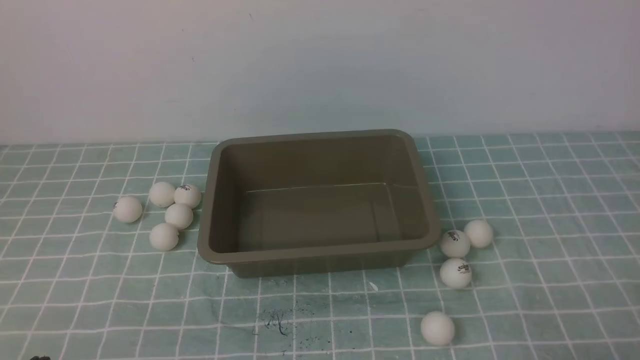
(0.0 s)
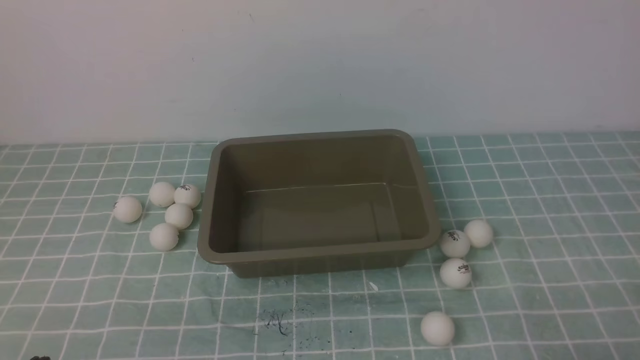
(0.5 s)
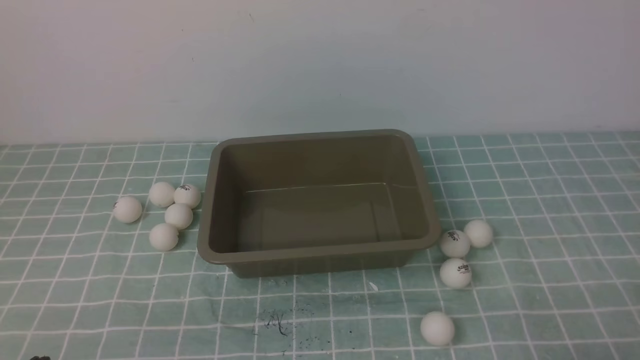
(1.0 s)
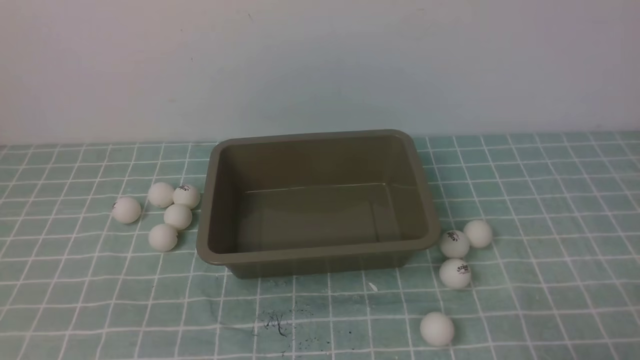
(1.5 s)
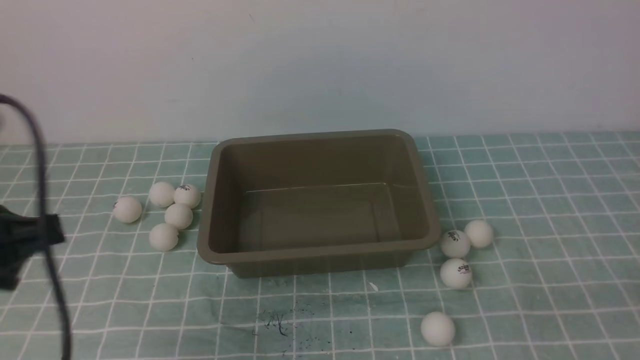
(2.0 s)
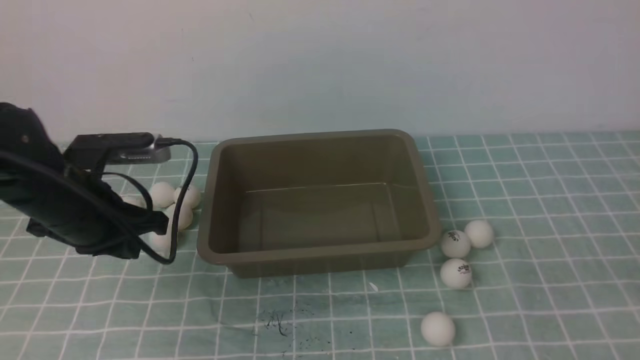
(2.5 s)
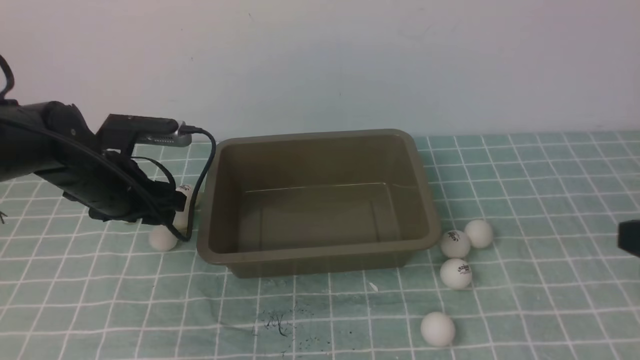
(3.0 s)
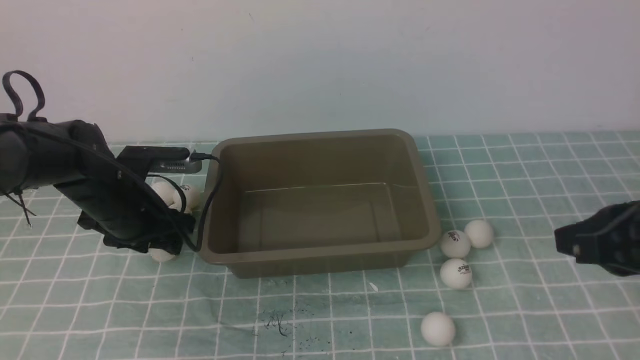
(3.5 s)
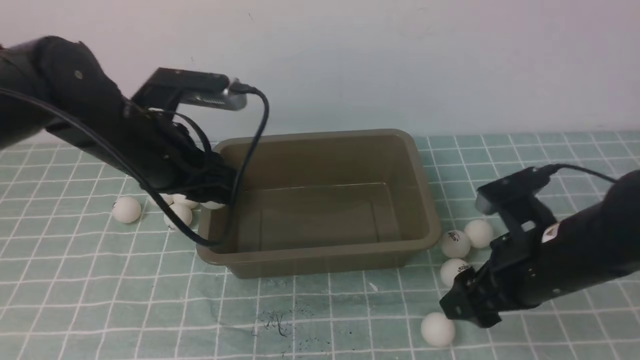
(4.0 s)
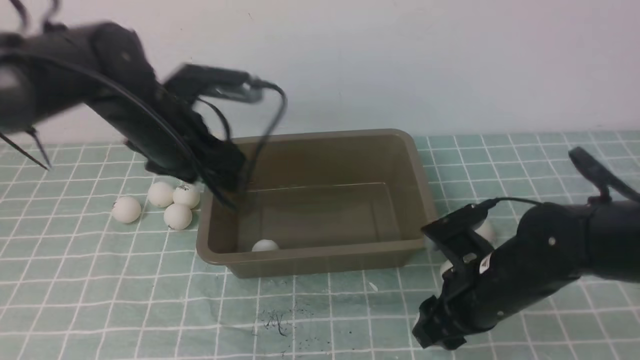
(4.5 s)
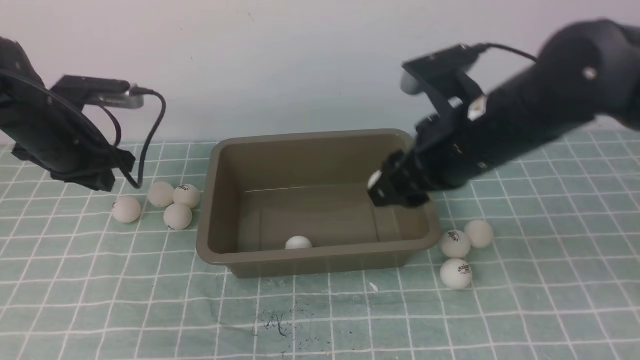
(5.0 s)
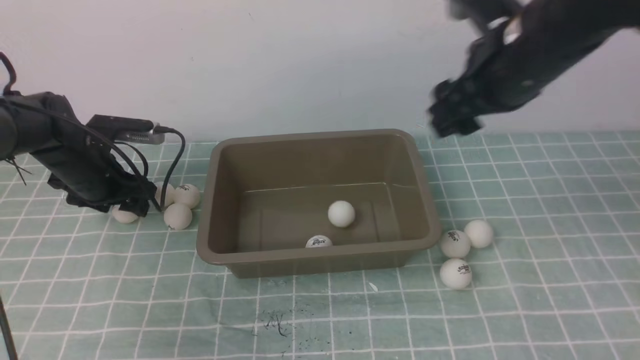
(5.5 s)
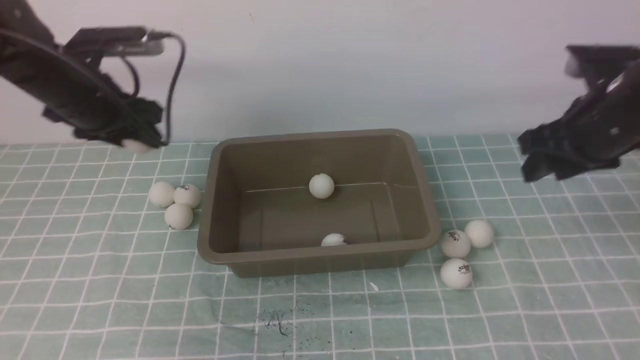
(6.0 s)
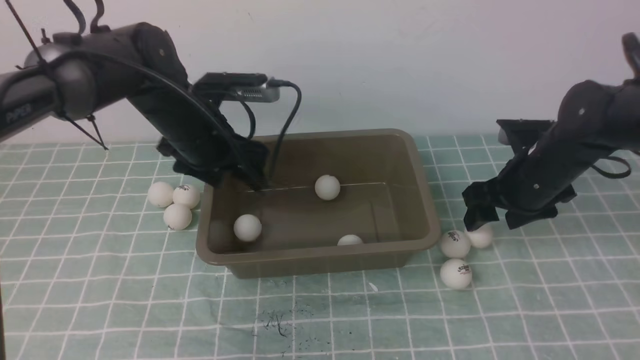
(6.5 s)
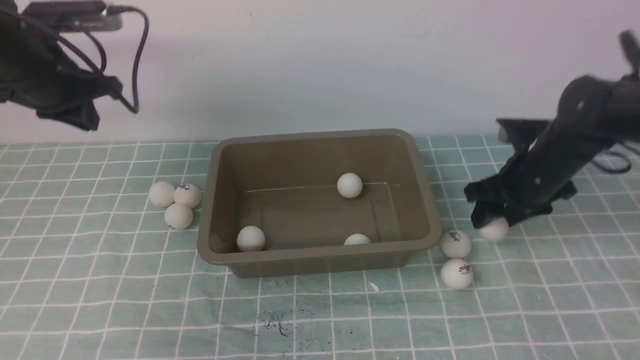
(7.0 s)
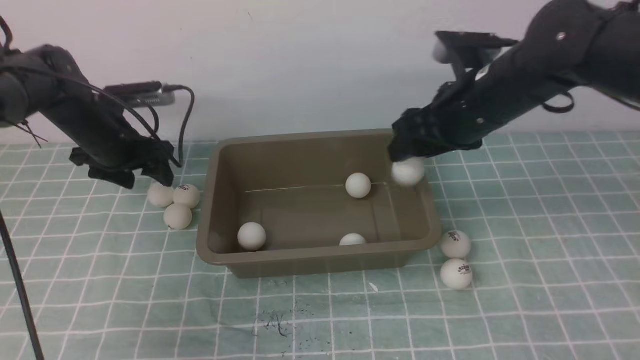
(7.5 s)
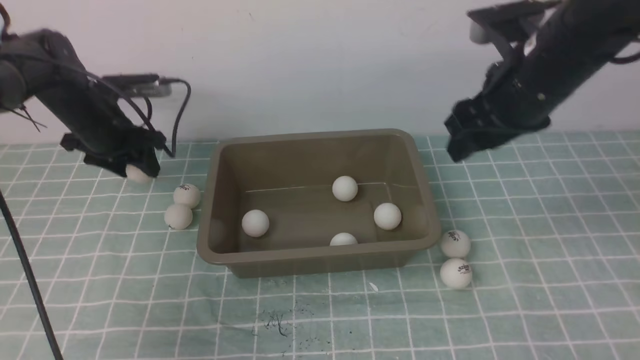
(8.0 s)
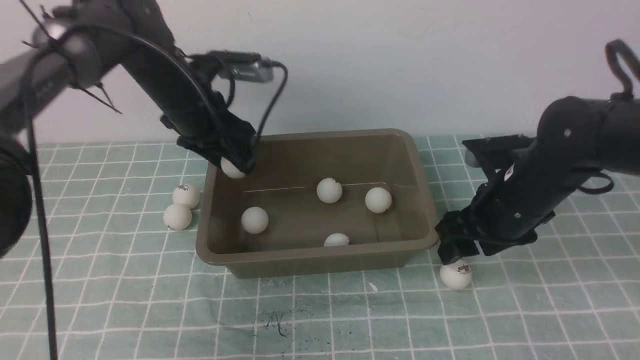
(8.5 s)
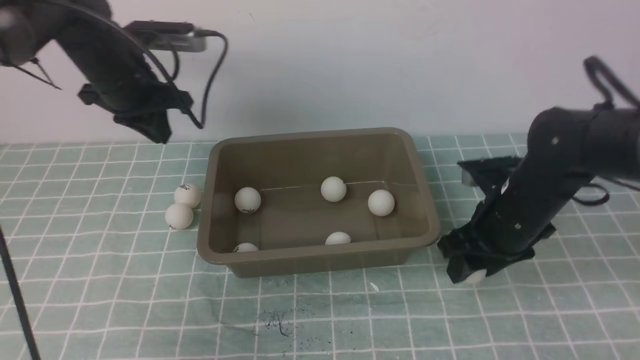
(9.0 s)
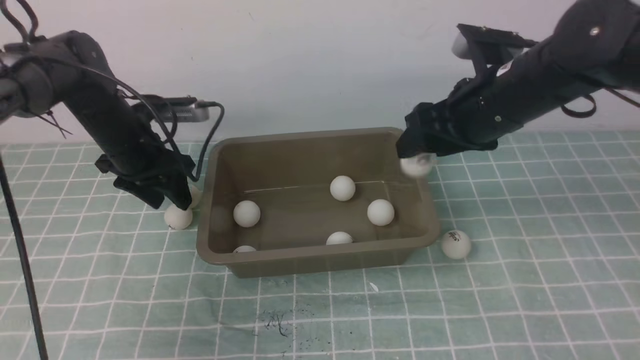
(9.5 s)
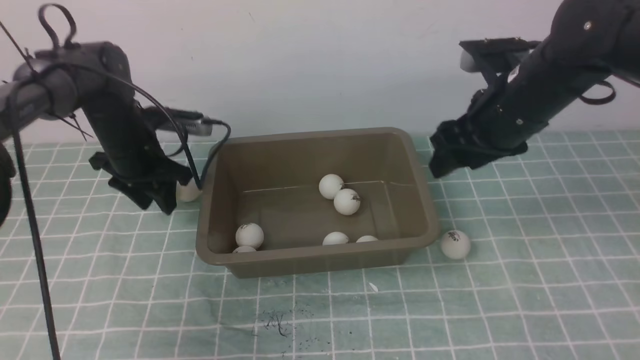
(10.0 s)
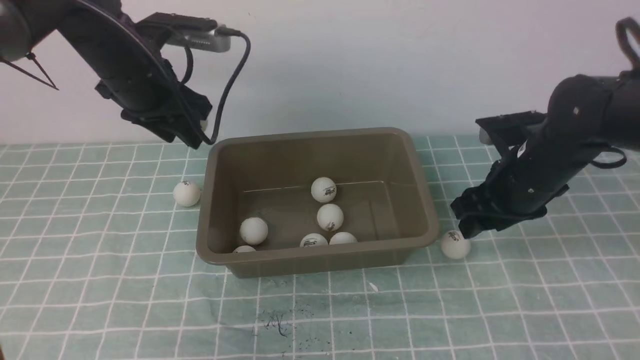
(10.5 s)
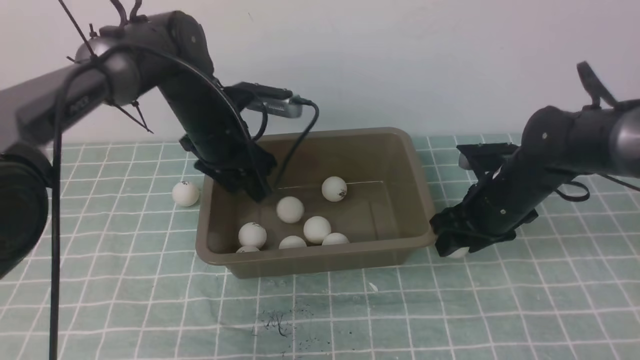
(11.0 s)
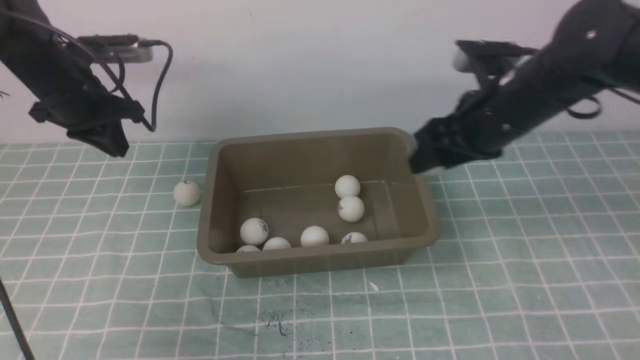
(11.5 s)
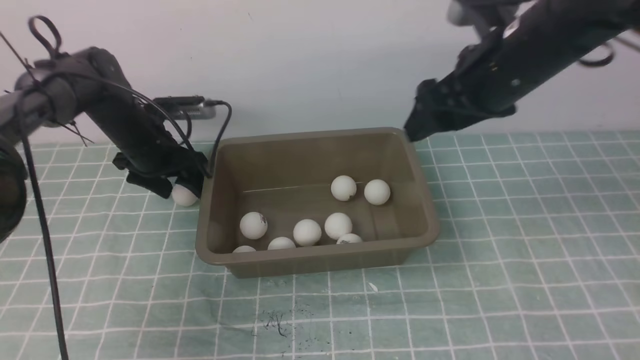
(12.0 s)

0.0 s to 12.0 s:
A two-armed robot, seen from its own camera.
Step, 0.0 to 3.5 s: use the left arm to clamp the table tennis ball closest to it.
Step, 5.5 to 6.0 s: use the left arm to clamp the table tennis ball closest to it.
Step, 7.0 to 7.5 s: use the right arm to put the table tennis ball into the box.
0.0 to 2.0 s: The left gripper travels upward and forward by some 20 cm.
2.0 to 4.0 s: The left gripper heads forward and to the right, covering roughly 20 cm, and opens its fingers. The right gripper travels forward and to the left by approximately 20 cm, and opens its fingers.
4.0 to 6.0 s: The right gripper goes some 15 cm forward, to the right and upward. The left gripper is displaced forward and to the left by roughly 10 cm, and closes and opens again.
6.0 to 8.0 s: The right gripper moves to the left, roughly 5 cm, and moves some 10 cm downward and comes back. Meanwhile the left gripper heads forward, covering some 5 cm, moves some 5 cm to the right and comes back, and closes, then opens again.
8.0 to 10.0 s: The right gripper goes downward and returns, some 10 cm each way; the left gripper goes to the right and returns, about 10 cm each way, and closes, then reopens.
10.0 to 12.0 s: The left gripper closes, then reopens. Meanwhile the right gripper moves upward, approximately 10 cm.

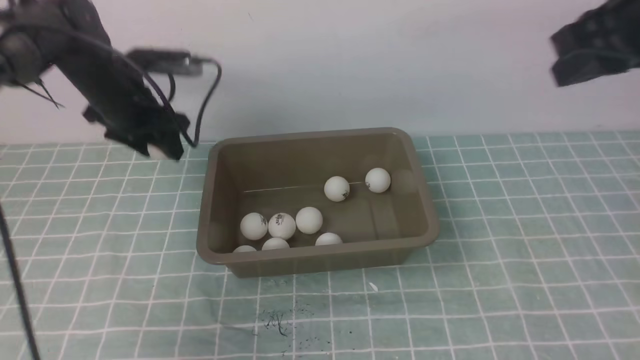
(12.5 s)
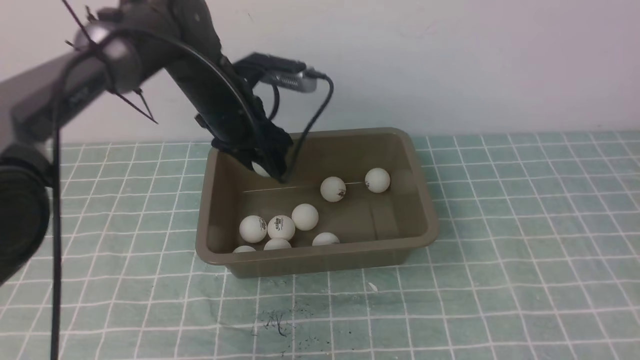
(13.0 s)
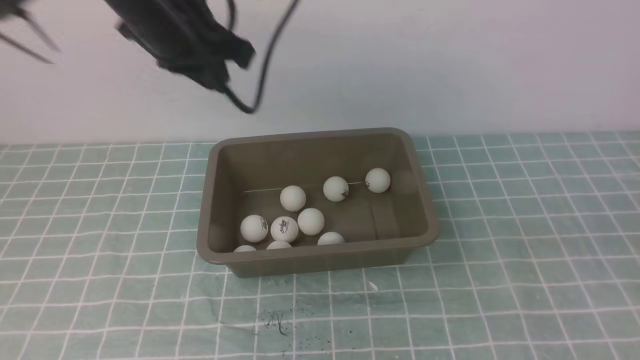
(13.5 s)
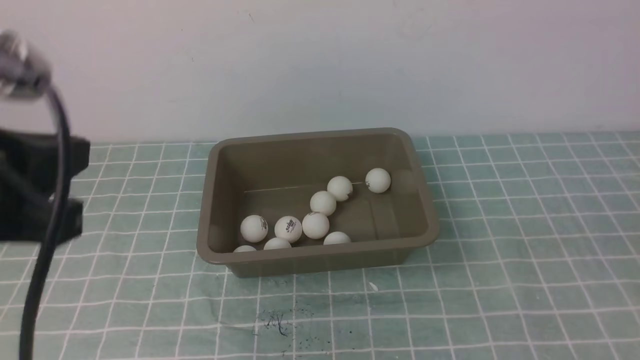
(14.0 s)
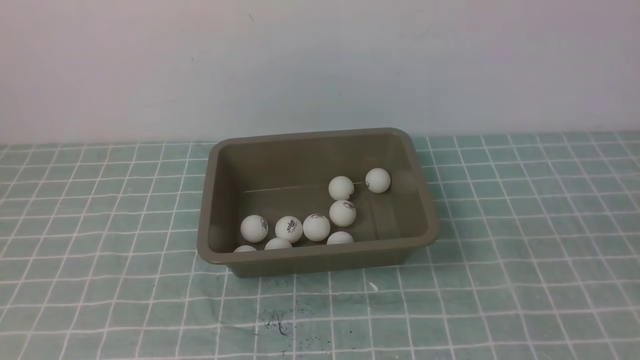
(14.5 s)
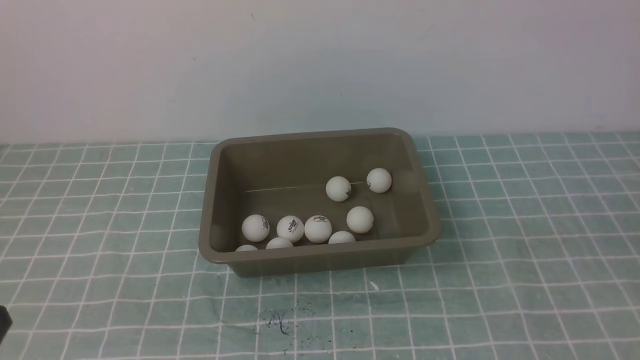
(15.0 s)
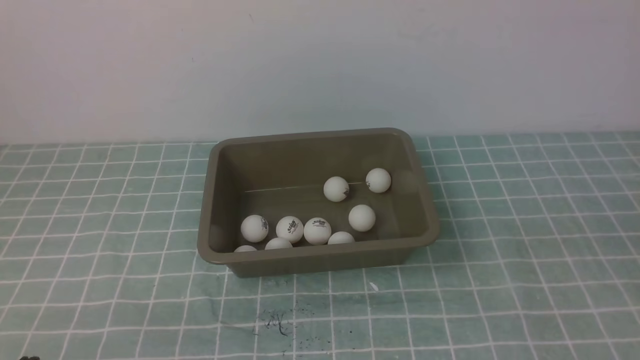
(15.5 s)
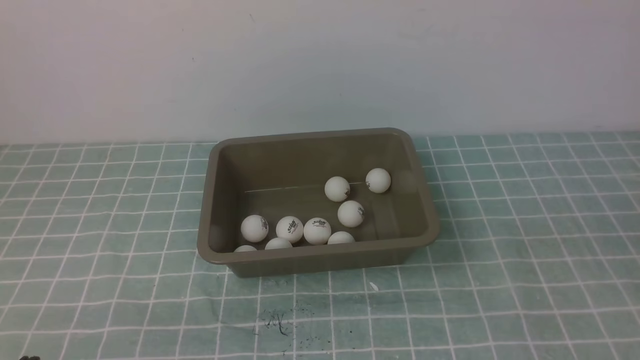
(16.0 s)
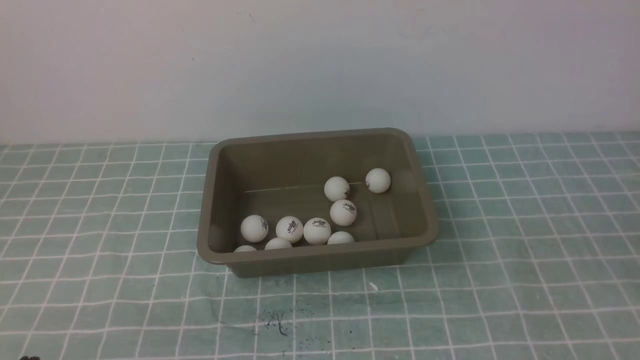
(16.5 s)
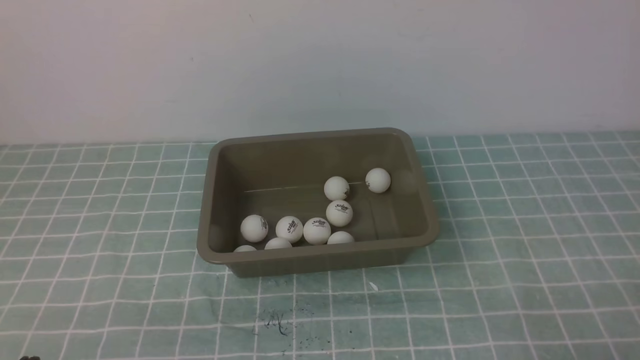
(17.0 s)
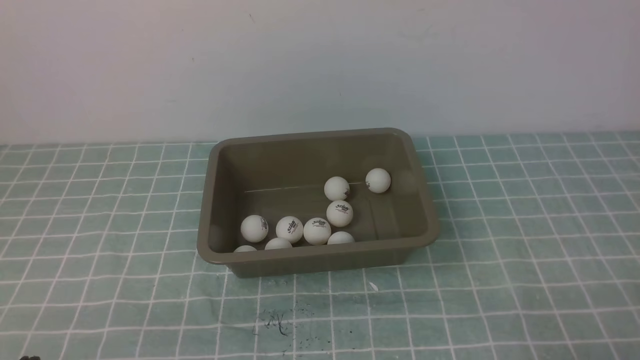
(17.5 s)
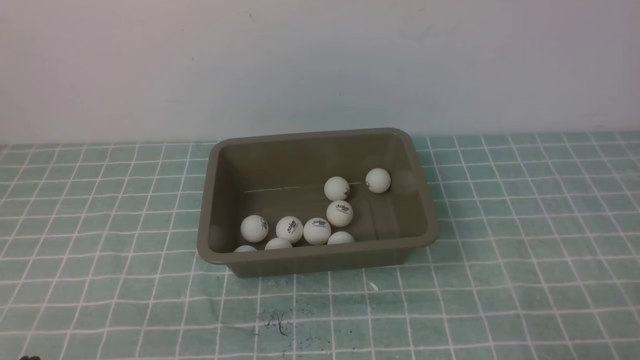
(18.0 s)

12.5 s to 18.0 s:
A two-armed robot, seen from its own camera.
Step, 12.5 to 13.5 s: use the left arm to put the table tennis ball into the box.
12.5 to 14.5 s: The left gripper moves backward, roughly 40 cm, and closes its fingers. The right gripper travels backward and downward by about 25 cm.
14.5 to 16.0 s: The left gripper travels downward by roughly 15 cm.

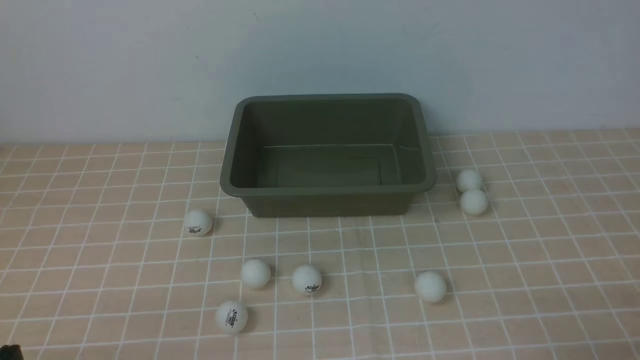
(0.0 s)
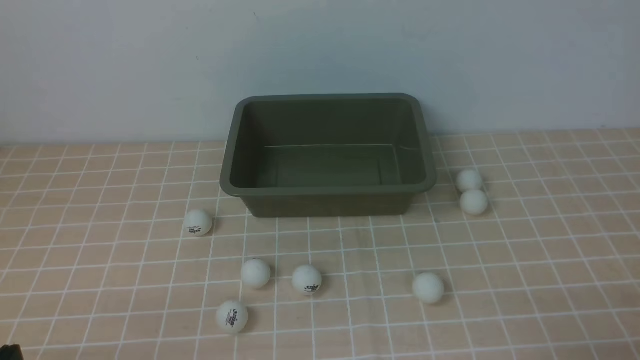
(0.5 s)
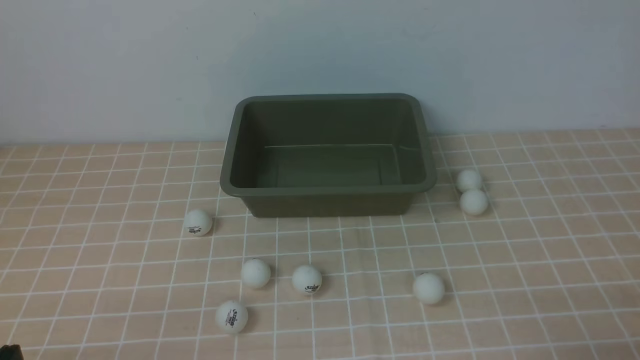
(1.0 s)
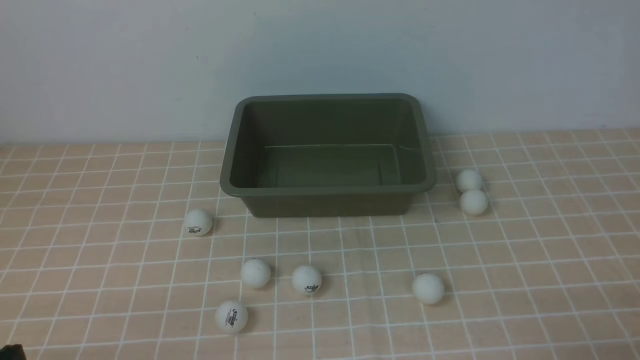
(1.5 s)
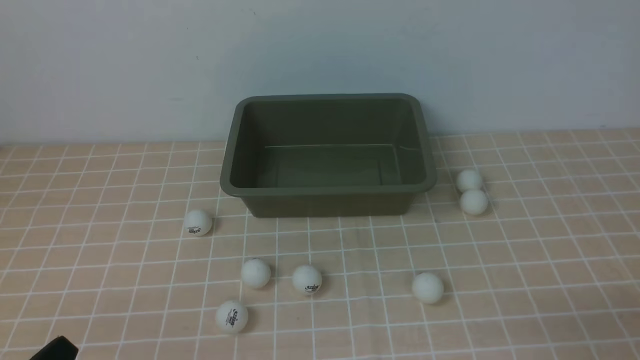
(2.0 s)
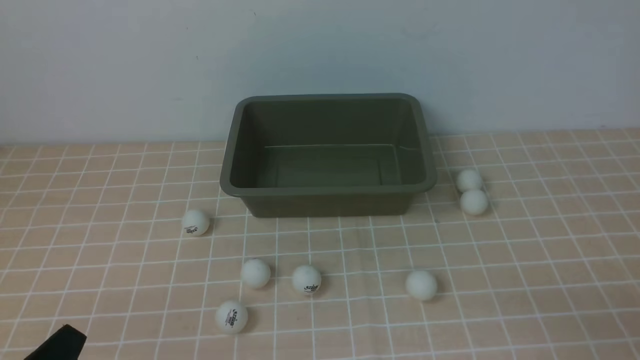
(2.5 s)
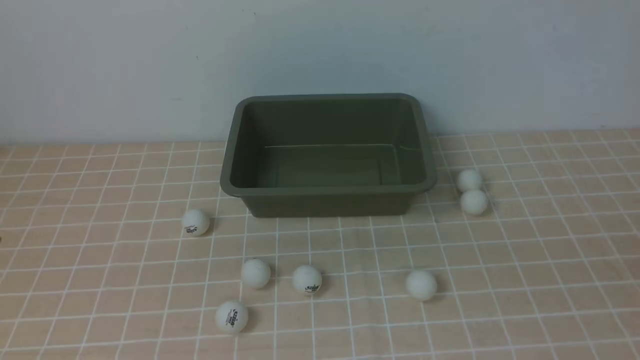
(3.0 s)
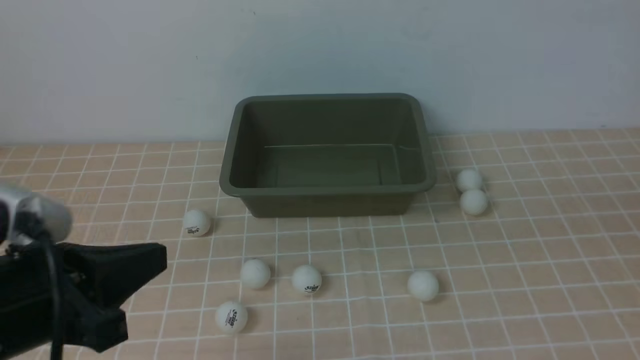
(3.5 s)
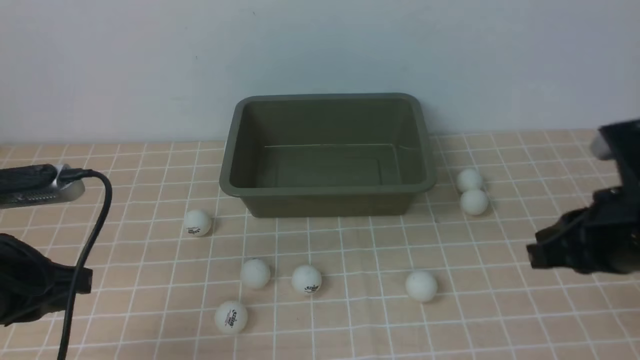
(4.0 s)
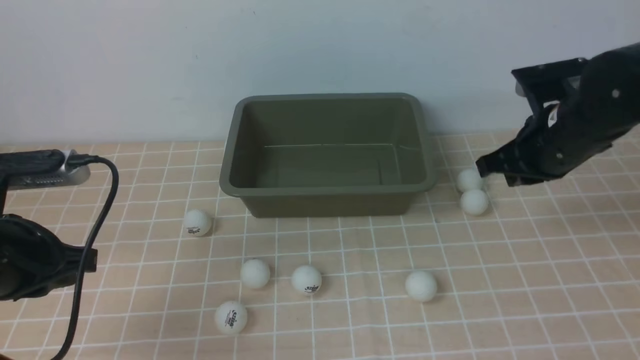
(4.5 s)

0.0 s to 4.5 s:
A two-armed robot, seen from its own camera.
2.0 to 4.5 s: The right gripper goes some 30 cm forward, while the left gripper travels forward and upward by some 15 cm.
